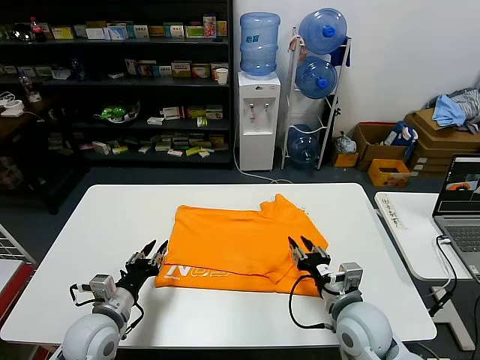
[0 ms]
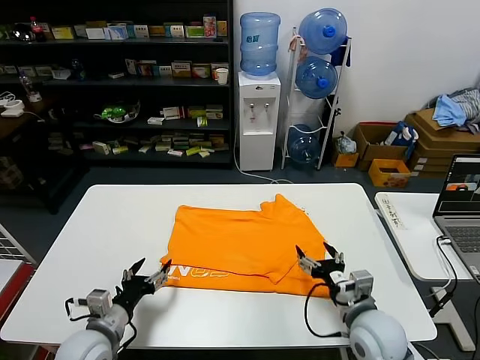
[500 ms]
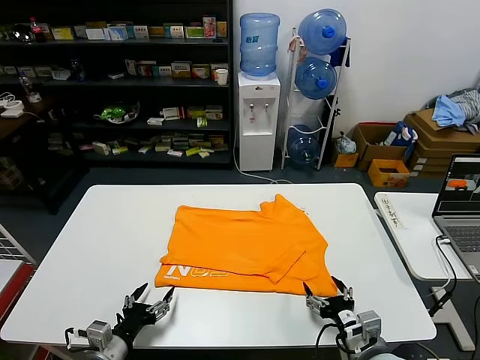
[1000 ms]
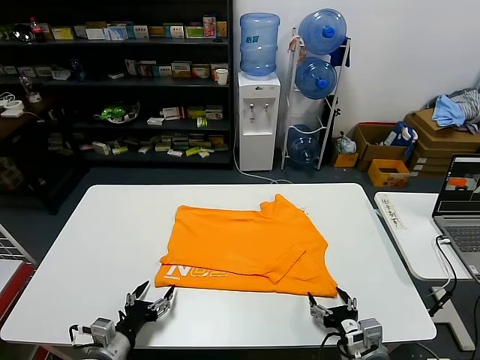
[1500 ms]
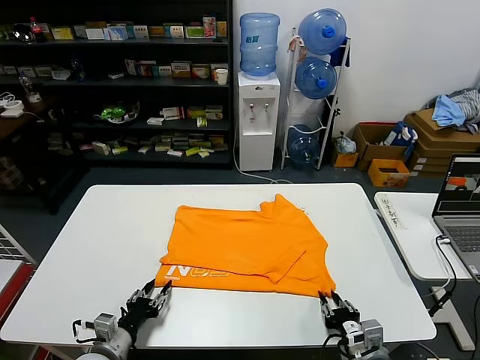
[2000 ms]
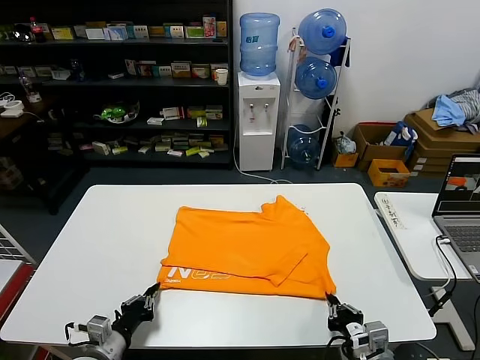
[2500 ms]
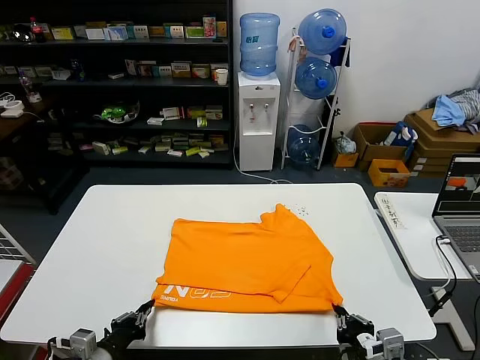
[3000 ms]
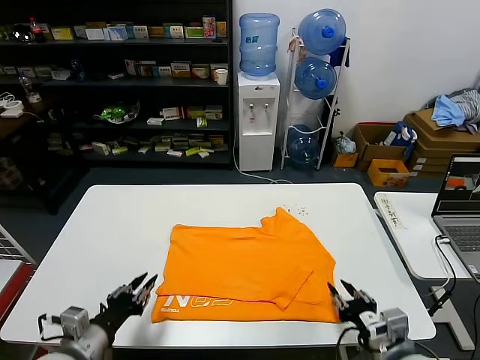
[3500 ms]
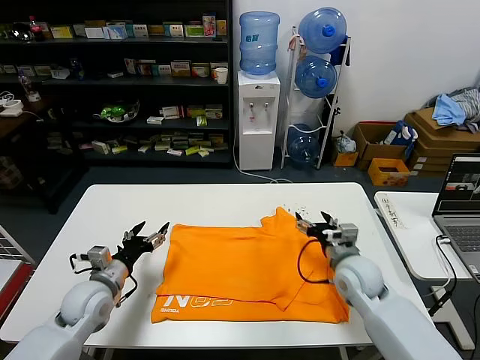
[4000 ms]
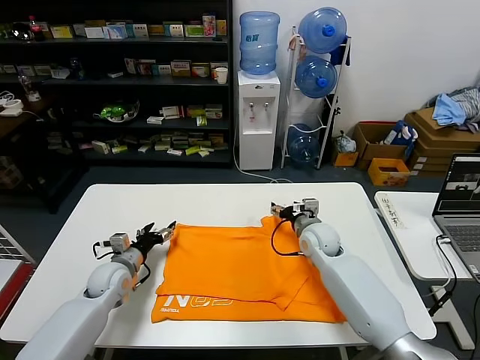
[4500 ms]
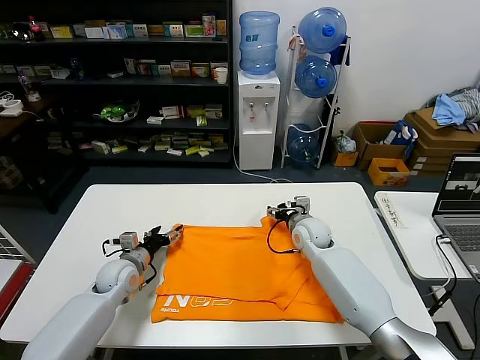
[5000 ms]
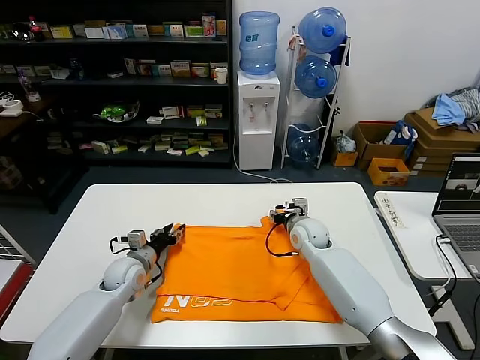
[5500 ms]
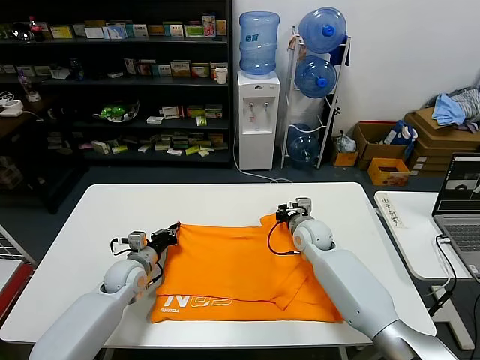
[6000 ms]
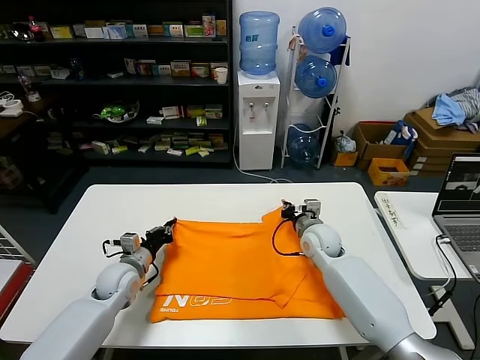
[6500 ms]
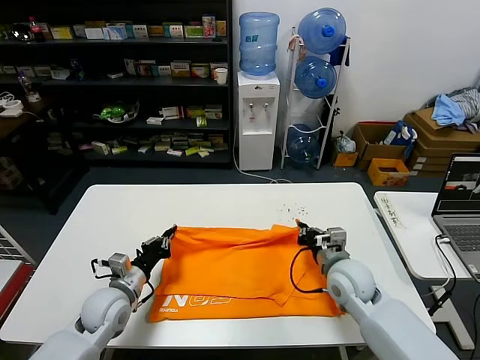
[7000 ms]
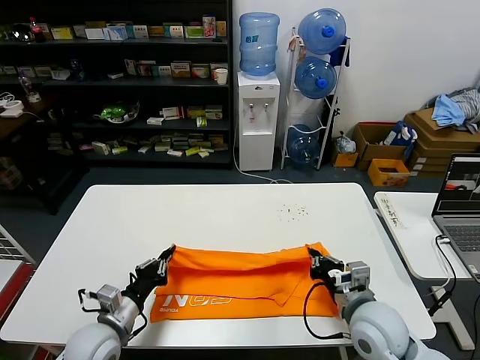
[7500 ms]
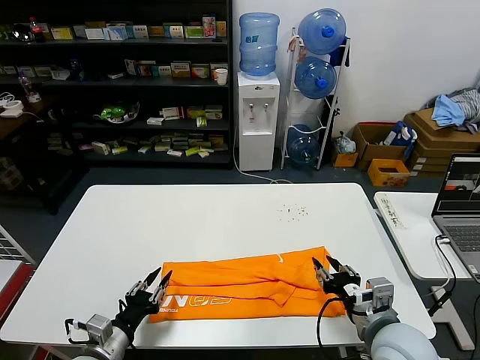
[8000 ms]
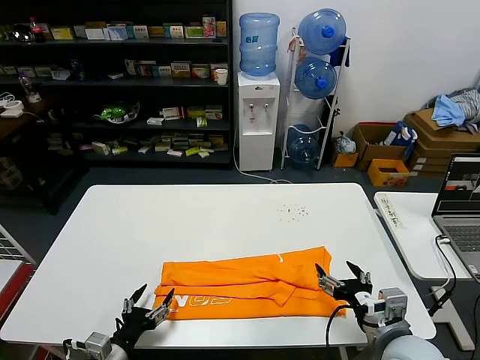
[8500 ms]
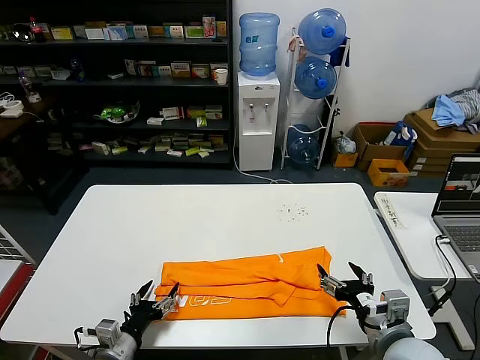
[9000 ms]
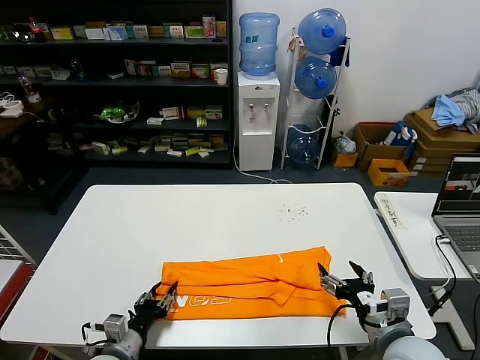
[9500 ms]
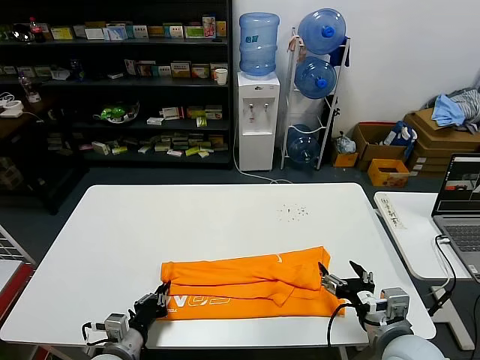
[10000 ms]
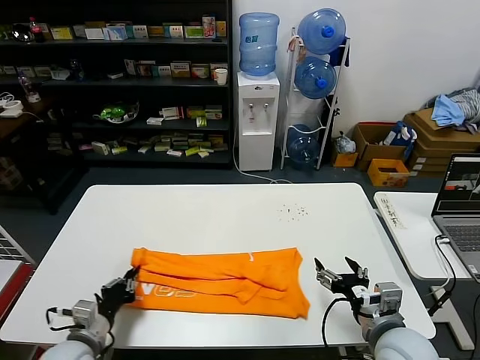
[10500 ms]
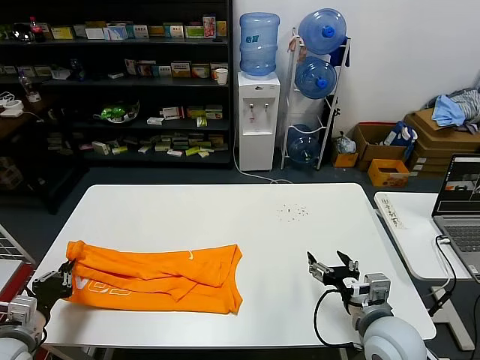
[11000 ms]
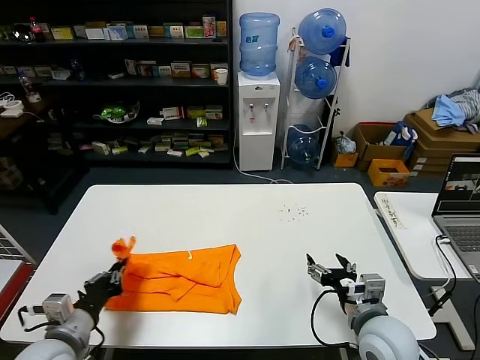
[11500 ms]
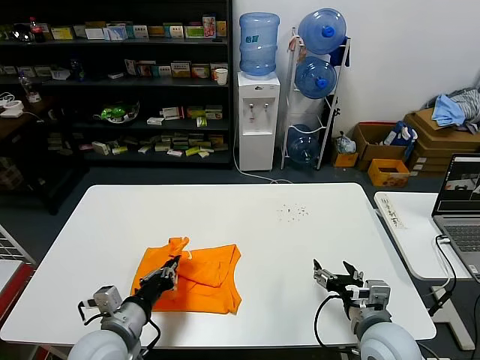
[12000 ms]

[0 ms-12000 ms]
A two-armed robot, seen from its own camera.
Task of the whole recording: fold and organize the clothes.
Step, 500 ms to 3000 ms: Drag the clothes downward with both gripper.
Step, 3500 ms to 6000 ms: use both grippers simultaneously to clamp the upper edge of the clothing fabric.
Step, 6500 ms to 7500 ms: use both grippers to drag the upper edge of the fabric backward and fold it over the lower edge.
Step, 8500 ms to 10000 ms: use the left gripper to clamp the left edge of the fabric.
0 ms to 2000 ms: The right gripper is displaced backward and downward by about 10 cm, and opens, then closes once more. Meanwhile the left gripper heads downward and backward, covering approximately 10 cm, and opens, then closes once more.
2000 ms to 4000 ms: The right gripper heads forward, covering some 20 cm, and opens; the left gripper travels forward and upward by roughly 15 cm, and closes, then reopens.
4000 ms to 6000 ms: The right gripper moves forward and to the left, about 15 cm, and closes its fingers. Meanwhile the left gripper goes about 10 cm forward and downward, and closes.
6000 ms to 8000 ms: The grippers both shift backward by approximately 25 cm. The right gripper opens. Meanwhile the left gripper opens up.
8000 ms to 10000 ms: The left gripper closes. The right gripper opens its fingers.
10000 ms to 12000 ms: The left gripper moves upward, roughly 10 cm, and reaches some 15 cm to the left, then returns.

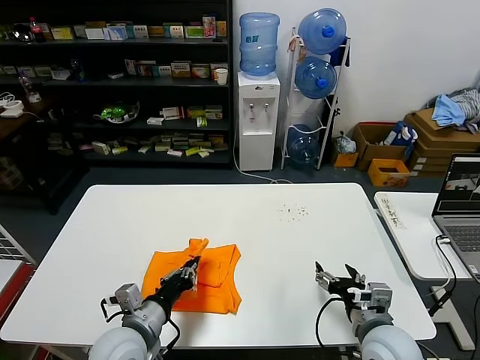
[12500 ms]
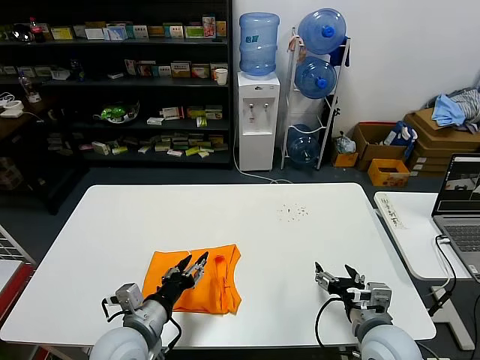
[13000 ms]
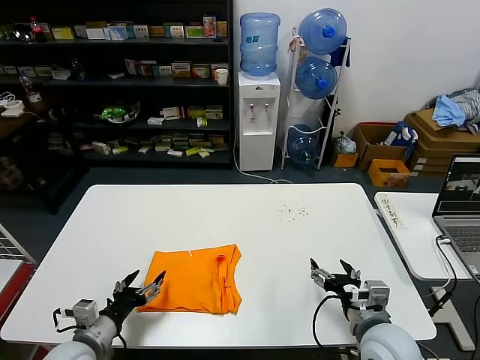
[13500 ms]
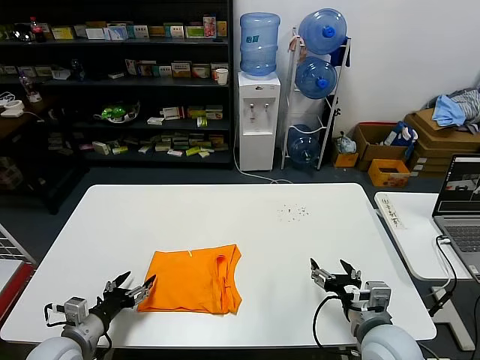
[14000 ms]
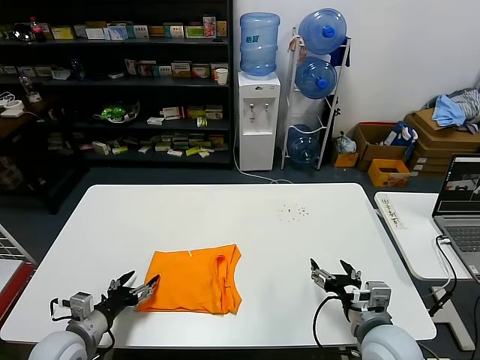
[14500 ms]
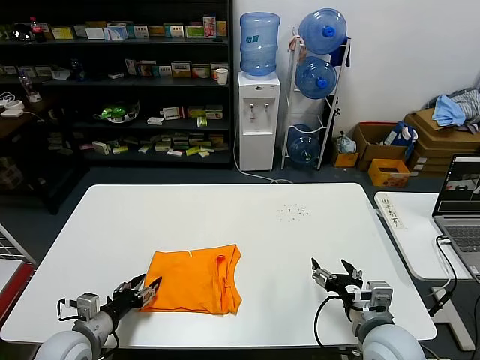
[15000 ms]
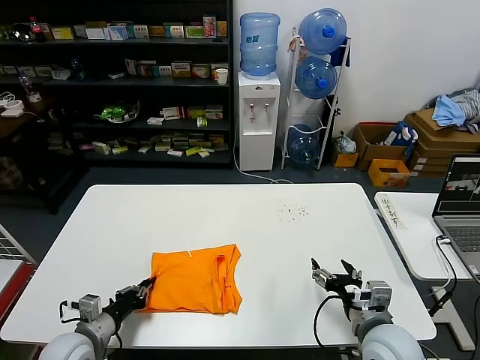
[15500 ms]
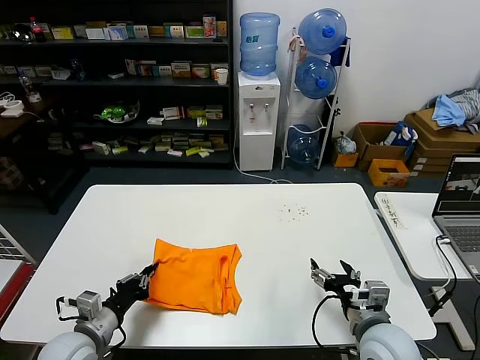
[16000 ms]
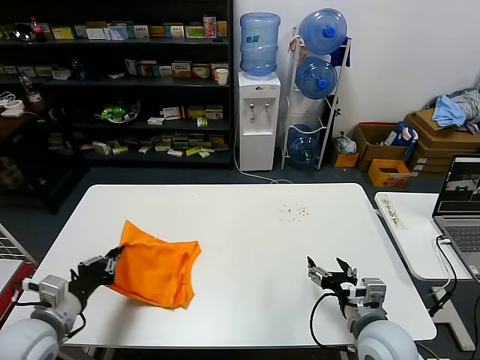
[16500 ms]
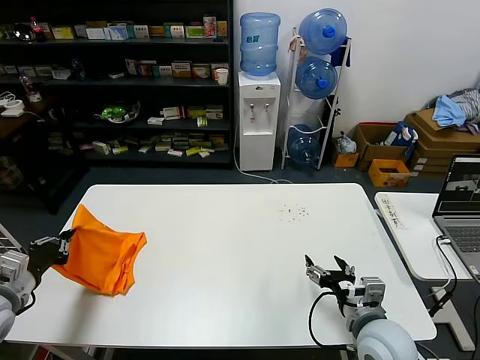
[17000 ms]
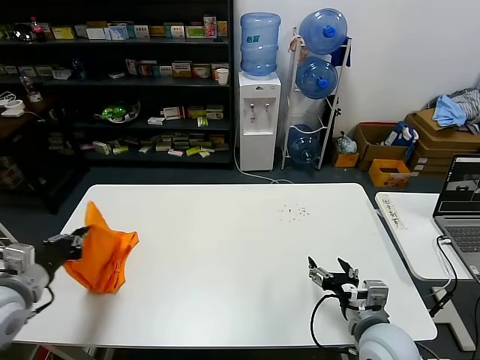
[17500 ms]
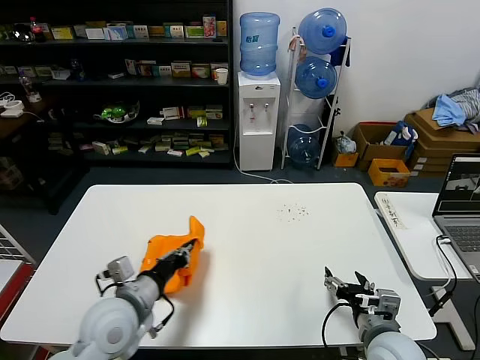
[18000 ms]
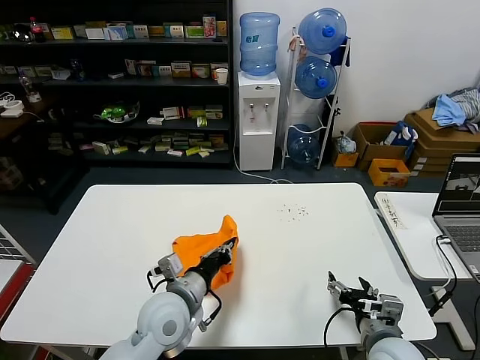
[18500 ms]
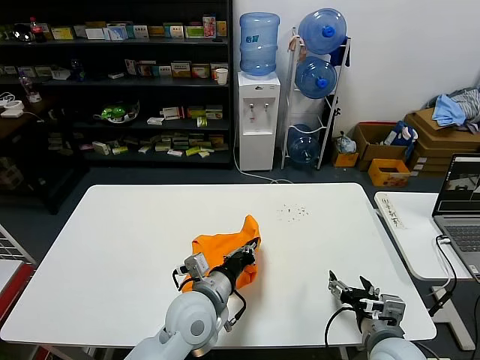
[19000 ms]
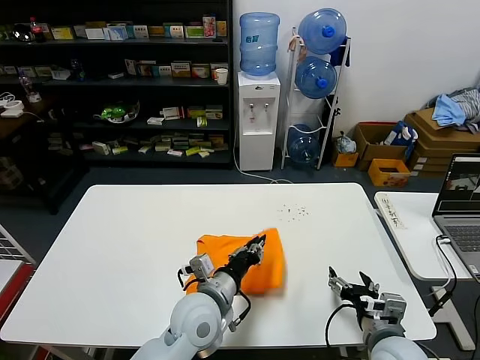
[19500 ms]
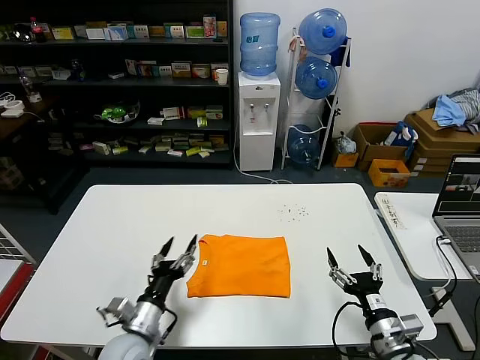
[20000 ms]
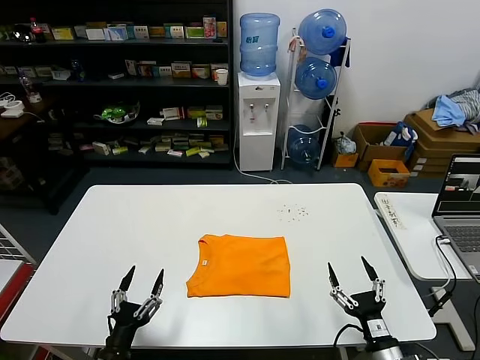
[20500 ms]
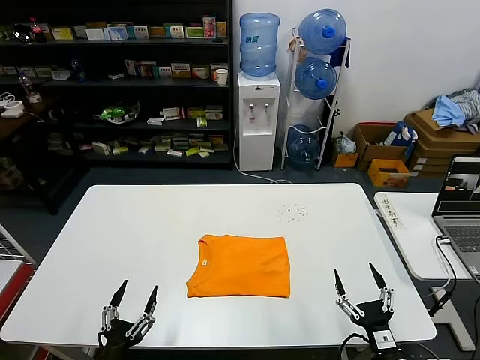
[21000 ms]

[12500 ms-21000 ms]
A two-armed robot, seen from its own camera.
Task of the whole recording: fold and organize the clothes.
Step, 13500 ms to 19500 ms: Flip the folded clothes over with left gripper.
12500 ms to 14500 ms: The left gripper moves to the left and downward, some 15 cm, and opens its fingers.
14500 ms to 16500 ms: The left gripper shifts approximately 10 cm upward, and closes up.
16500 ms to 19000 ms: The left gripper travels to the right by roughly 25 cm.
19000 ms to 21000 ms: The right gripper is displaced downward and backward by approximately 10 cm. Meanwhile the left gripper heads to the left, backward and downward, covering approximately 30 cm, and opens up.

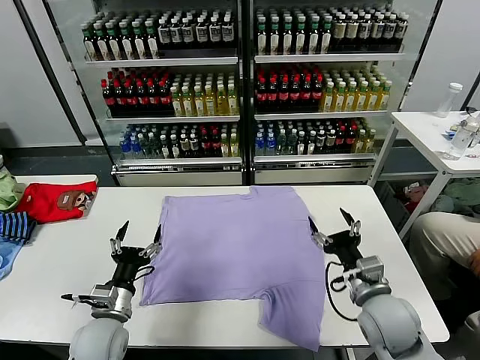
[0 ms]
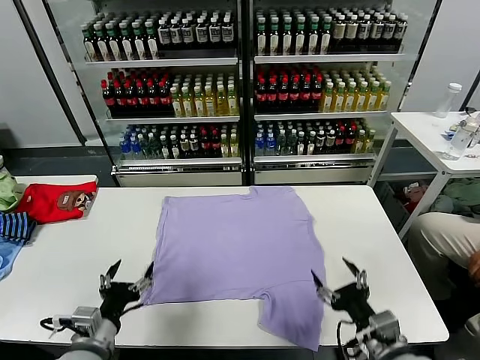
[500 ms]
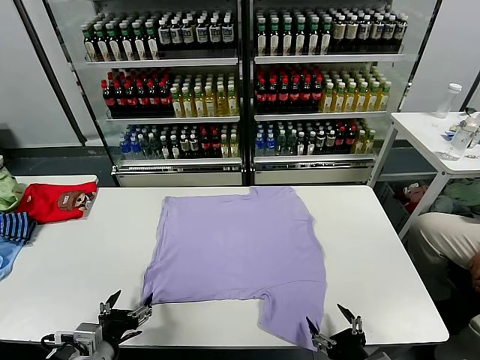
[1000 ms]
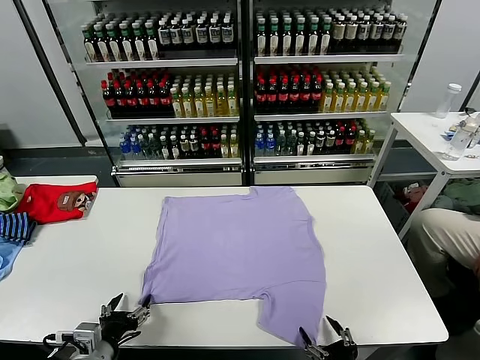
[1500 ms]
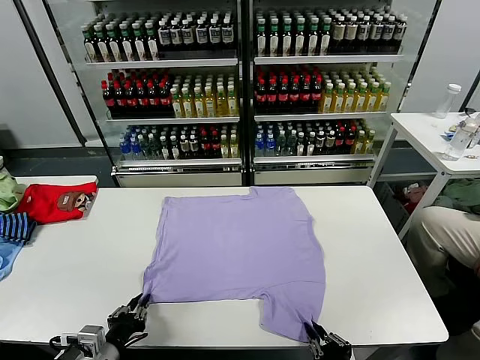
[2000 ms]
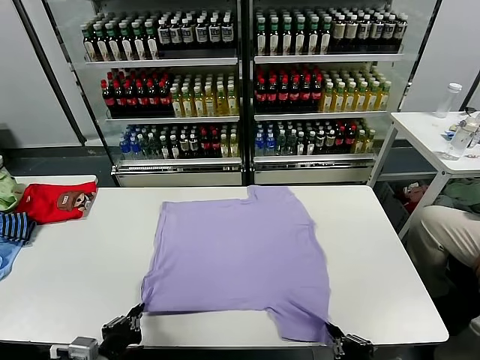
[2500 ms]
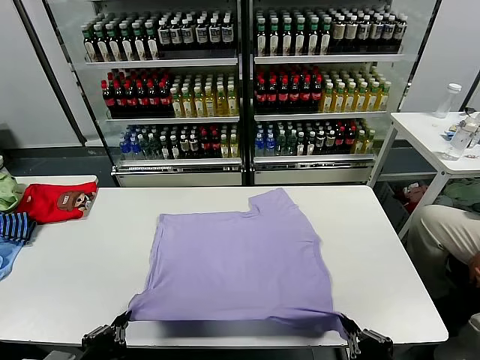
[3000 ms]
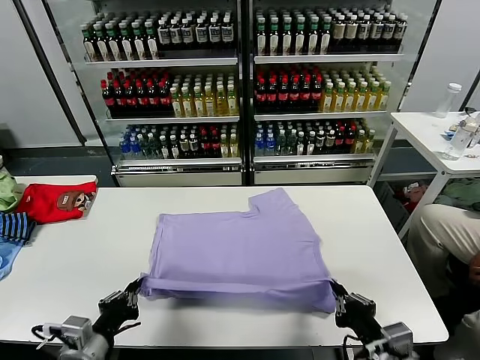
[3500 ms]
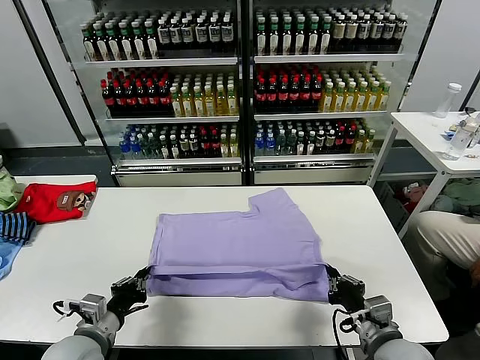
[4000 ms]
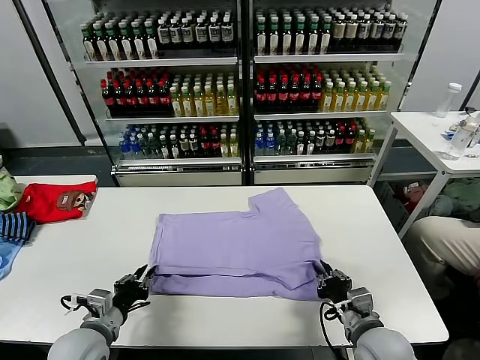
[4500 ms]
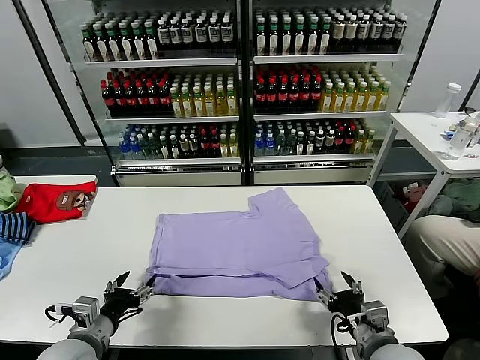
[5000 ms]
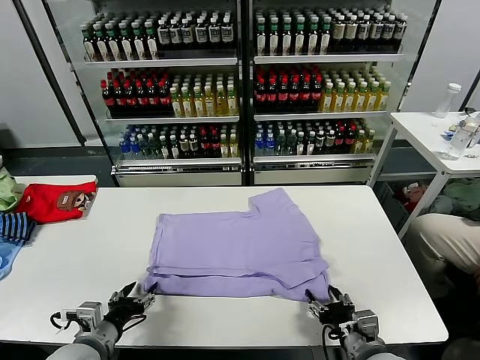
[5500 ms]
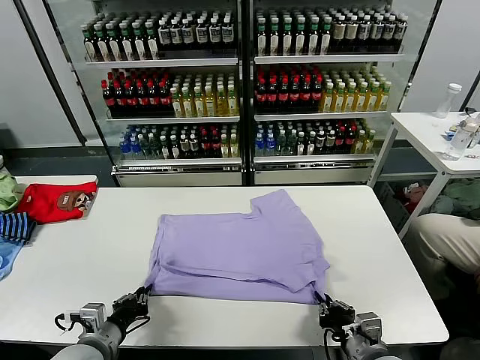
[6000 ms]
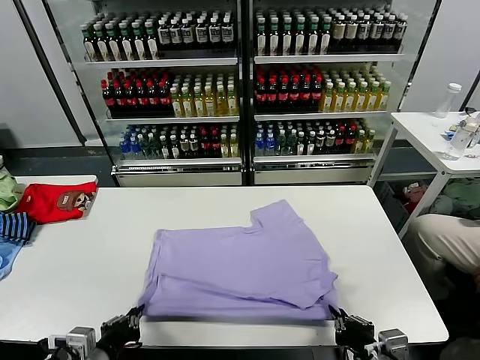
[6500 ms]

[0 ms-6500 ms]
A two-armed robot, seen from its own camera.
Task of the whole recording: fold and organize the clothes.
Step, 0 ms to 2000 ms: use both grippers simultaneously to clamp the lower edge of the clothing fabric.
Step, 2500 ms to 4500 ms: use both grippers to drag the lower edge of the fabric forward and fold it over the upper edge.
2000 ms to 4500 ms: The left gripper heads forward, covering some 5 cm; the right gripper travels forward by approximately 10 cm, and opens.
4500 ms to 6500 ms: The grippers both shift backward by about 10 cm. The left gripper opens, then closes again. Meanwhile the right gripper opens, then closes once more.
